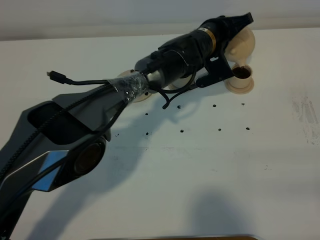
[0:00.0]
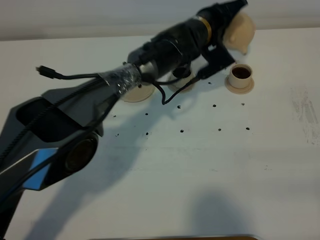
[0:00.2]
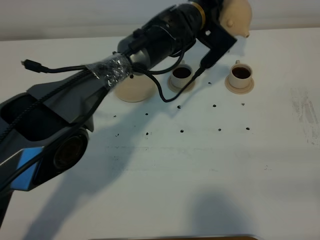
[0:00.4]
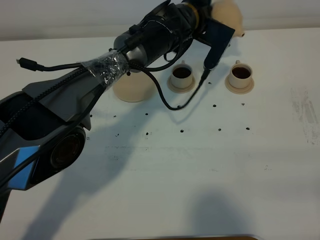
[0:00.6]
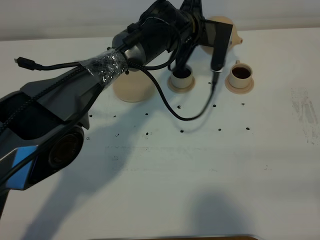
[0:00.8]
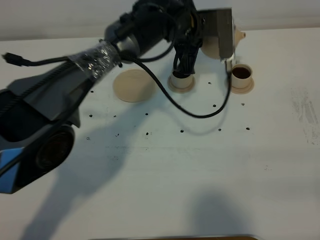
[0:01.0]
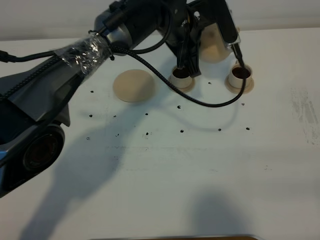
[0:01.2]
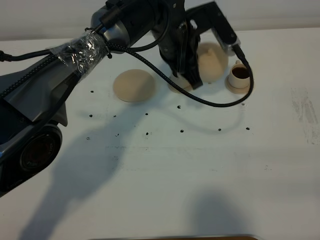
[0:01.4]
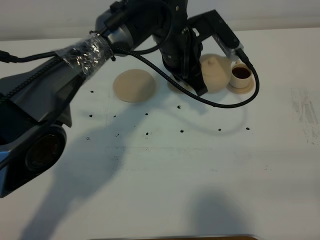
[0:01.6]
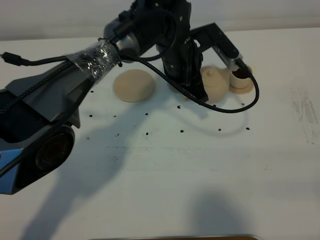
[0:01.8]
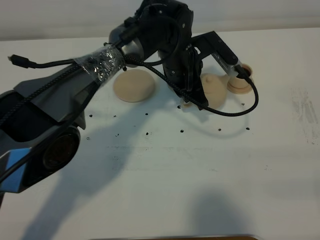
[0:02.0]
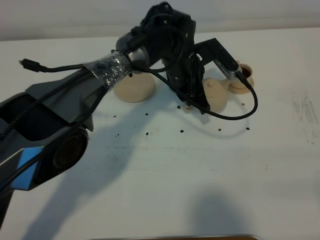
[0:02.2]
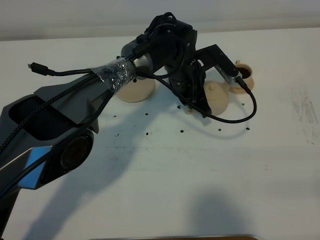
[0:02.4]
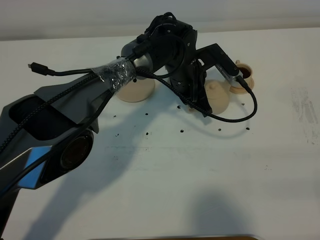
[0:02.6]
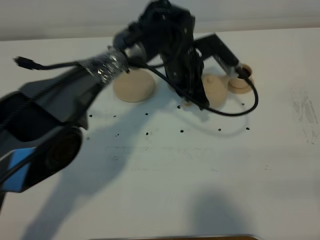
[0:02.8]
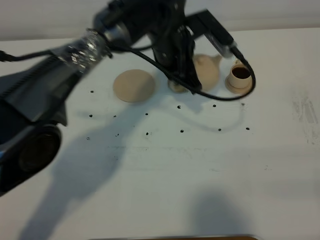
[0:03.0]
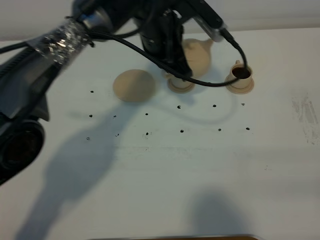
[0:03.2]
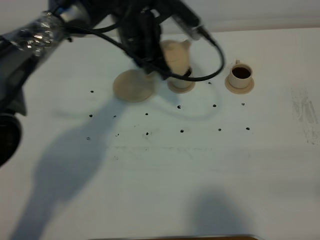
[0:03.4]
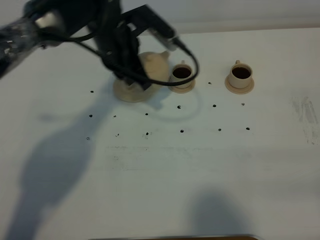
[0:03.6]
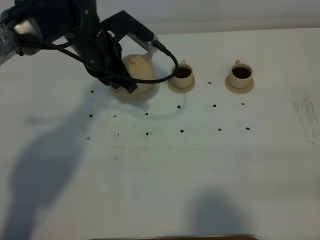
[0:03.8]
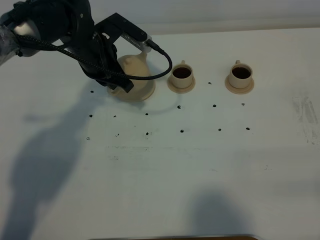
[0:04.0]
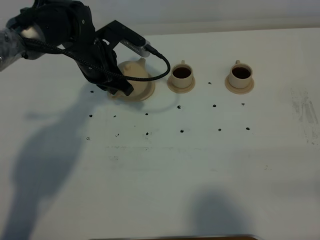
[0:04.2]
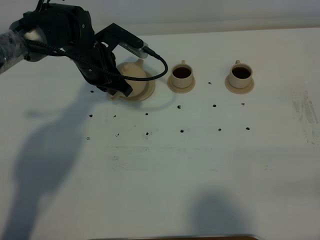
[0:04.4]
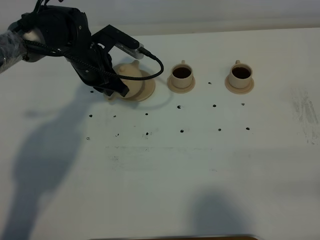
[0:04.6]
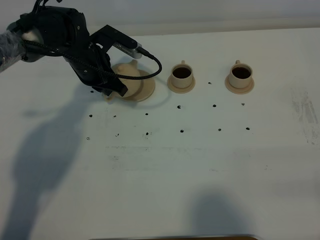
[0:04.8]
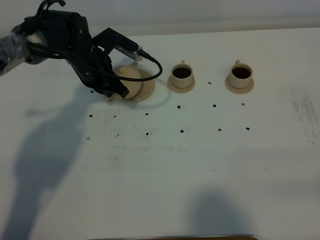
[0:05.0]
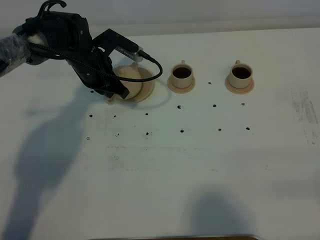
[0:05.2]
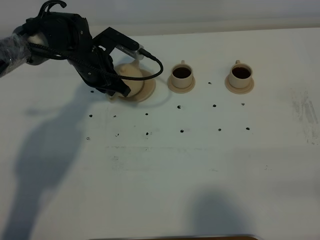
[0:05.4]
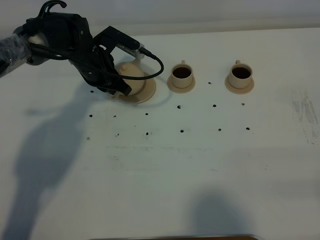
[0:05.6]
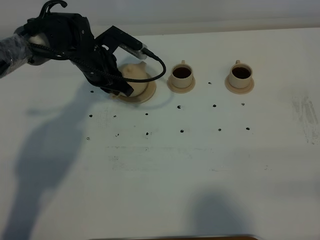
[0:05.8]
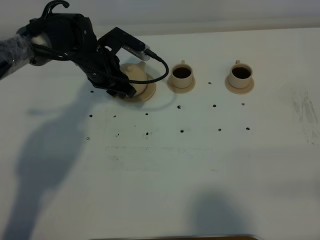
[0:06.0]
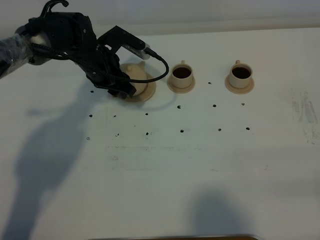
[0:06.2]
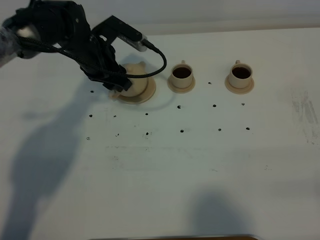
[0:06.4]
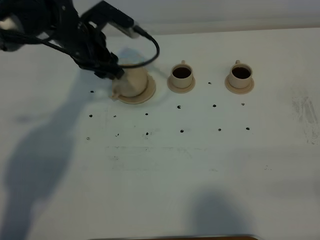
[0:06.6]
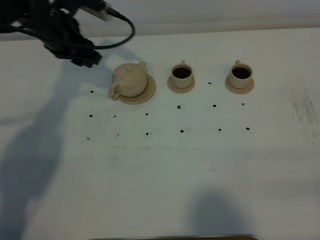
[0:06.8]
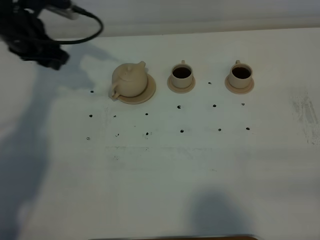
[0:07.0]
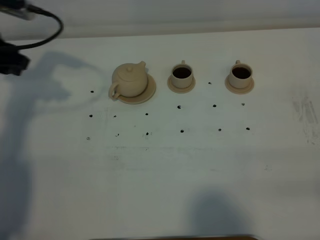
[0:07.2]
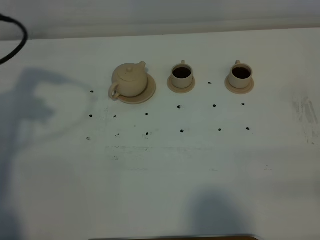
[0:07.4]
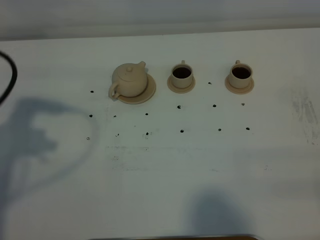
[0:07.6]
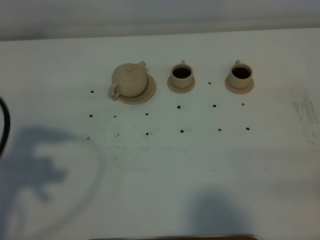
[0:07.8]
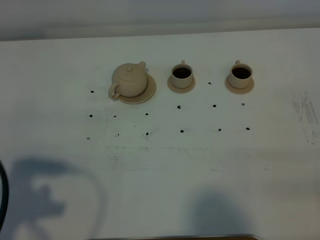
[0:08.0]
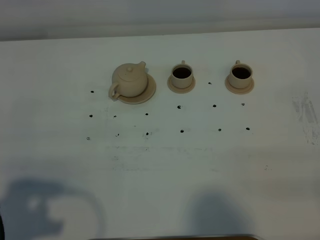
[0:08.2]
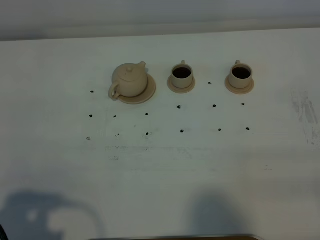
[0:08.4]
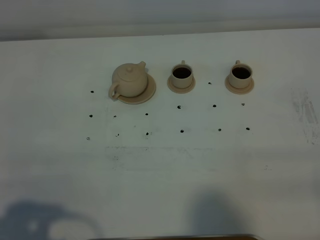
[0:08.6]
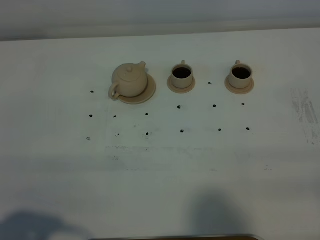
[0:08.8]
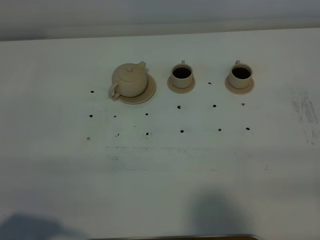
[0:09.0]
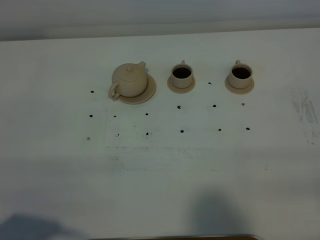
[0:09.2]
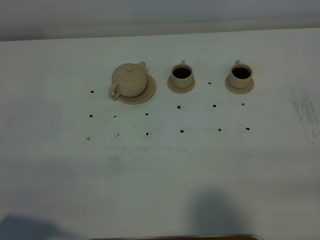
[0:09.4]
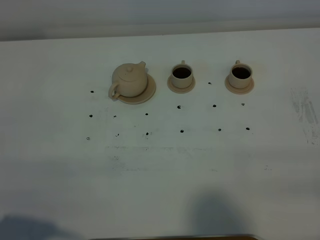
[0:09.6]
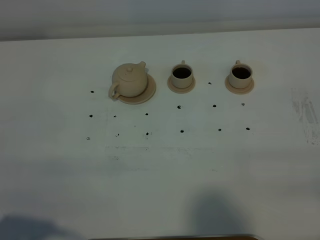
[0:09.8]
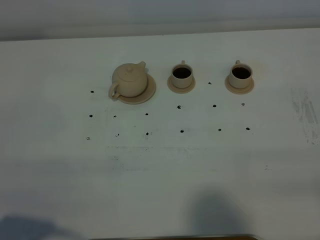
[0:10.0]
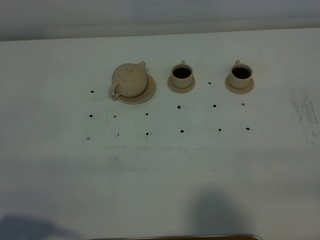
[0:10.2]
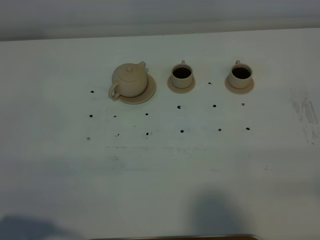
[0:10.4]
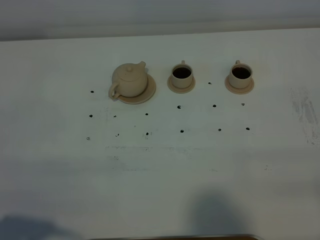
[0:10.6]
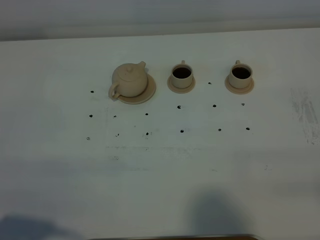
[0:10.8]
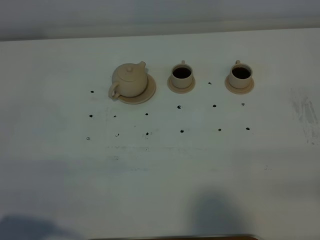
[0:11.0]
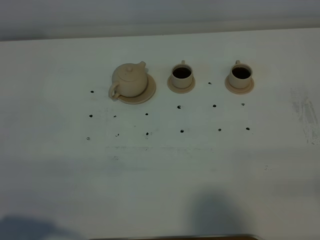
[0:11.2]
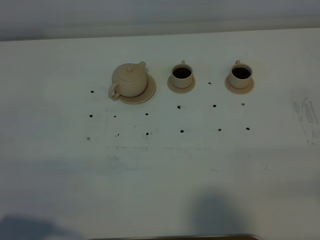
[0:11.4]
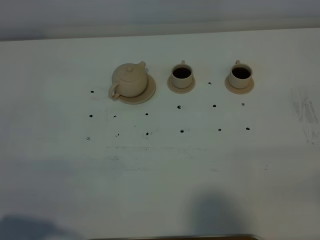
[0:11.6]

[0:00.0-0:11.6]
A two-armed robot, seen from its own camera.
Task of the whole recording: grasp the brown teapot and pour the tea into the two brown teacups one by one, put the brown teapot back in its original place.
0.0 to 1.4 s: The left gripper shifts roughly 10 cm upward, to the left and backward.
2.8 to 4.4 s: The left gripper travels to the left by some 15 cm.
4.4 to 5.8 s: The grippers move only a little.
5.8 to 7.2 s: The left gripper goes about 25 cm to the left, upward and backward, and opens.
7.2 to 8.8 s: The left gripper heads backward, covering approximately 35 cm.
8.8 to 10.2 s: Both grippers stay put.

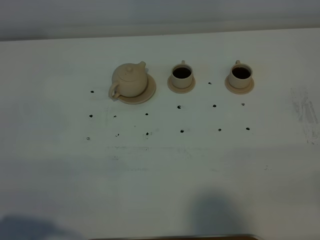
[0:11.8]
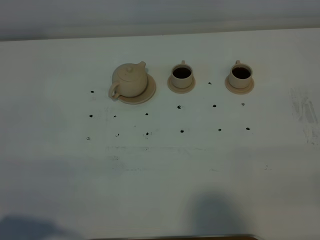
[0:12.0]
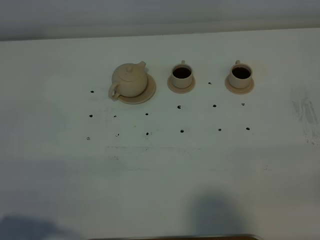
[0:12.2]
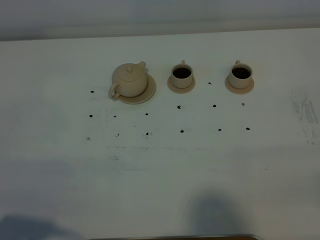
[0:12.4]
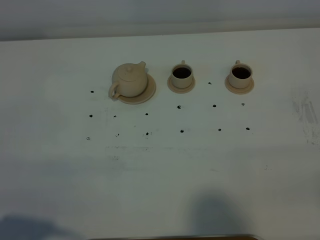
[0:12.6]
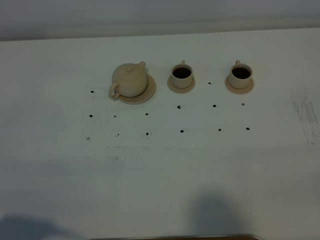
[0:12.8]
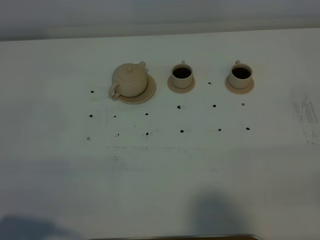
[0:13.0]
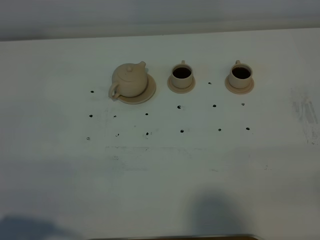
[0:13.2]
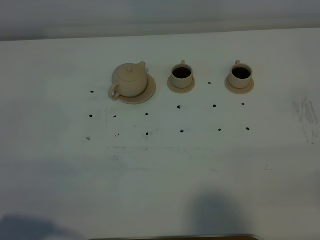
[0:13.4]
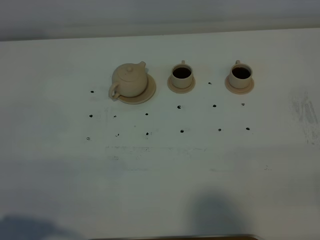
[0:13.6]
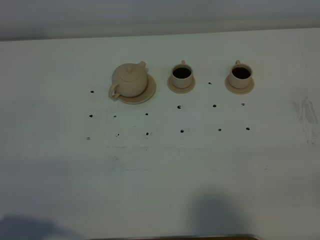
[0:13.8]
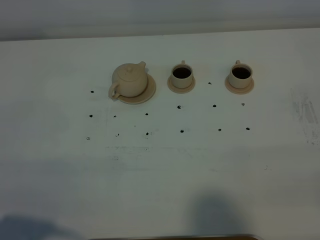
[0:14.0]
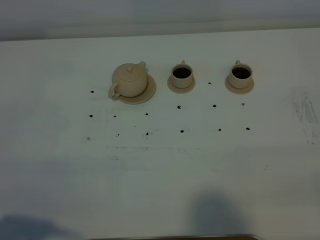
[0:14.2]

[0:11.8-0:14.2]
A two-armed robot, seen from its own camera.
Task of the whole recording: grasp the brown teapot and pour the tea into the two brown teacups one by one, put the brown teapot back in its original place.
11.8 to 14.2 s: Both grippers stay about where they are.

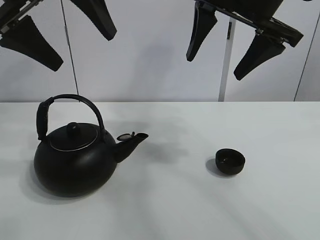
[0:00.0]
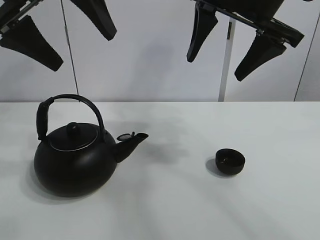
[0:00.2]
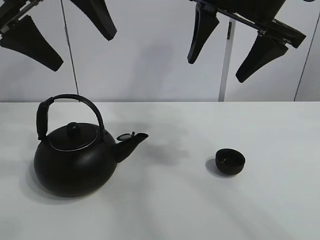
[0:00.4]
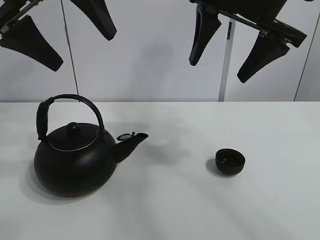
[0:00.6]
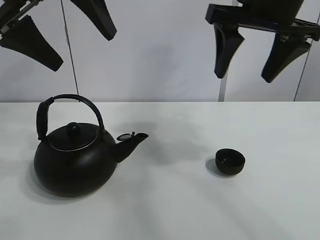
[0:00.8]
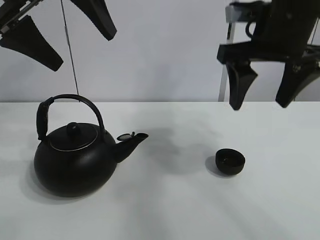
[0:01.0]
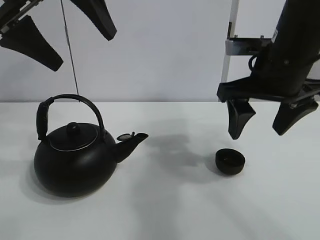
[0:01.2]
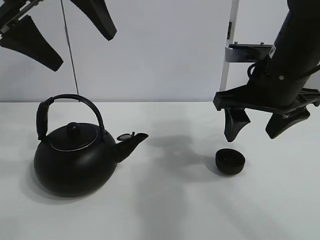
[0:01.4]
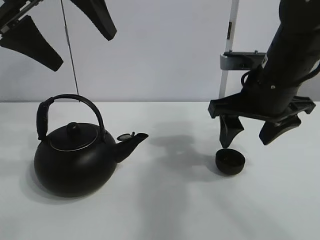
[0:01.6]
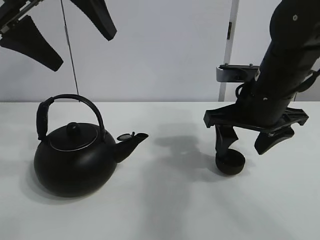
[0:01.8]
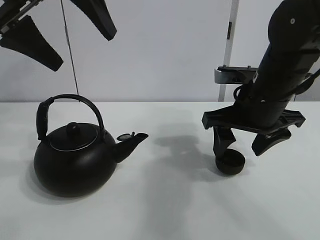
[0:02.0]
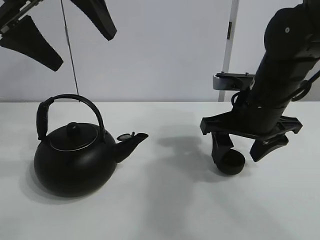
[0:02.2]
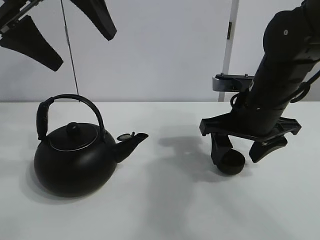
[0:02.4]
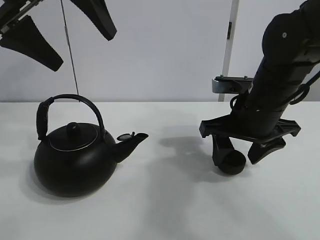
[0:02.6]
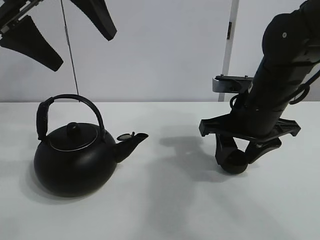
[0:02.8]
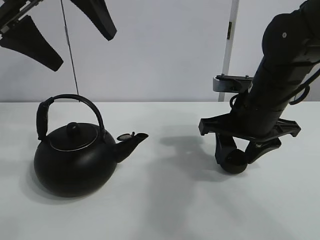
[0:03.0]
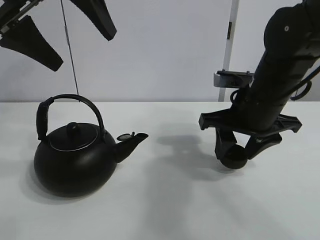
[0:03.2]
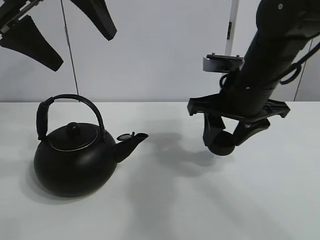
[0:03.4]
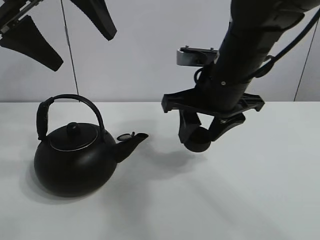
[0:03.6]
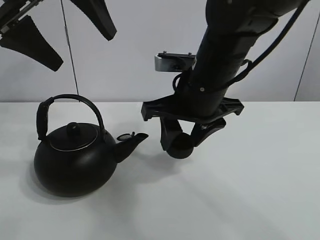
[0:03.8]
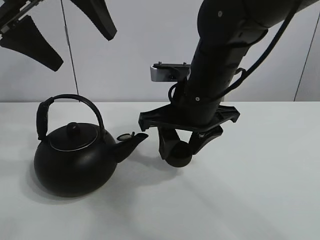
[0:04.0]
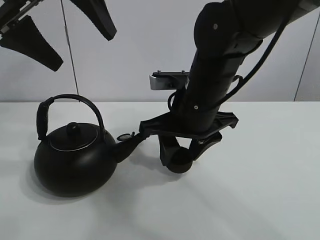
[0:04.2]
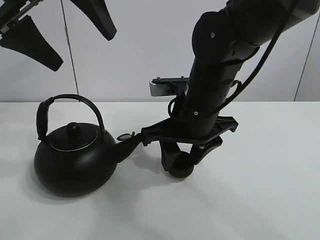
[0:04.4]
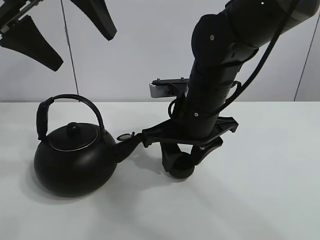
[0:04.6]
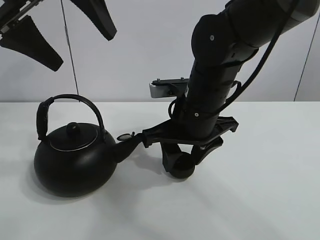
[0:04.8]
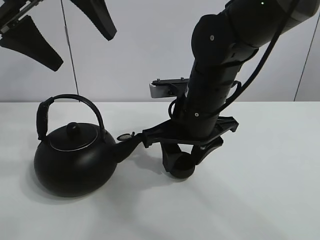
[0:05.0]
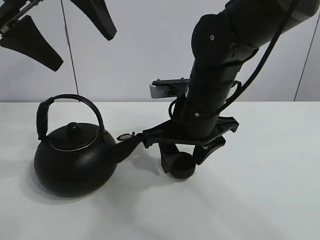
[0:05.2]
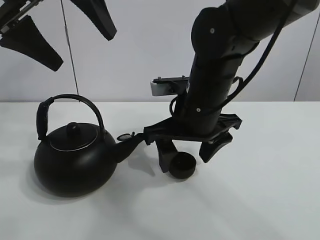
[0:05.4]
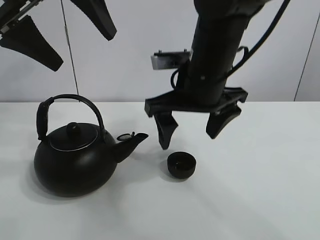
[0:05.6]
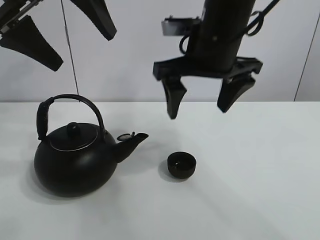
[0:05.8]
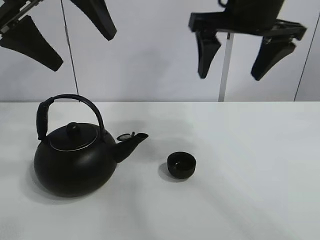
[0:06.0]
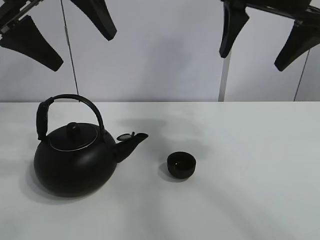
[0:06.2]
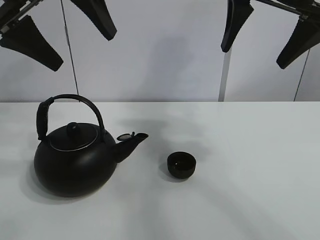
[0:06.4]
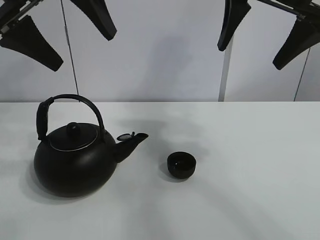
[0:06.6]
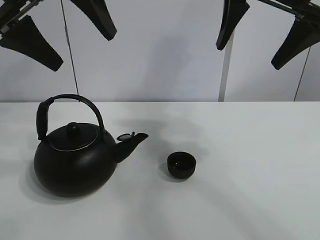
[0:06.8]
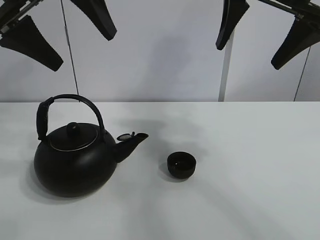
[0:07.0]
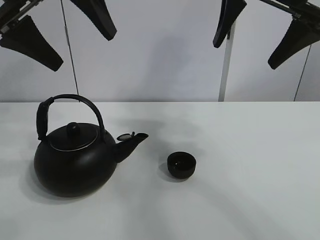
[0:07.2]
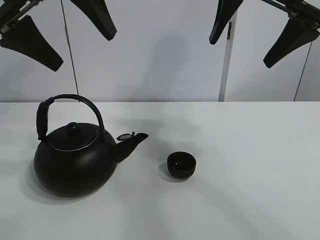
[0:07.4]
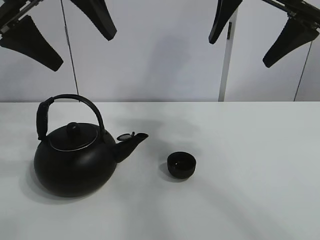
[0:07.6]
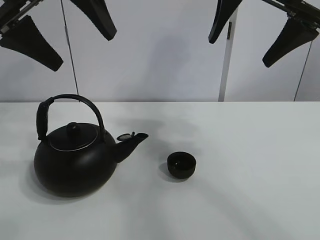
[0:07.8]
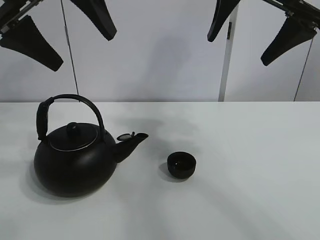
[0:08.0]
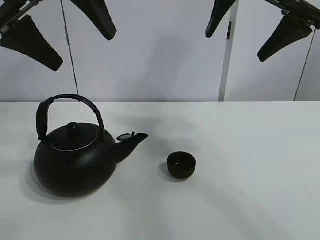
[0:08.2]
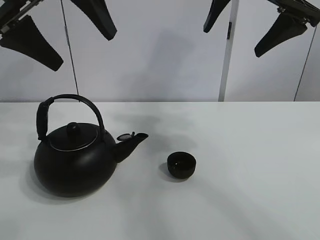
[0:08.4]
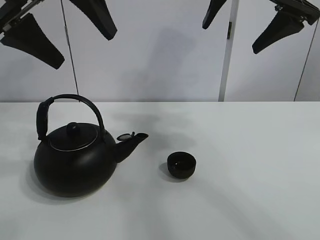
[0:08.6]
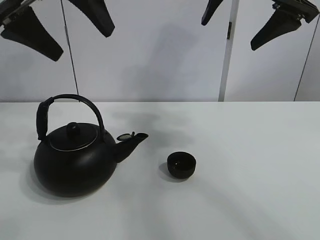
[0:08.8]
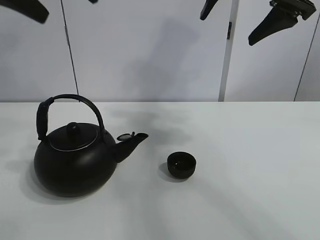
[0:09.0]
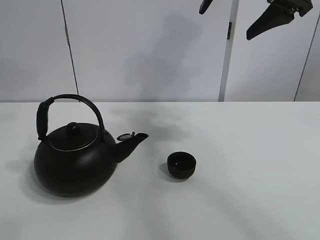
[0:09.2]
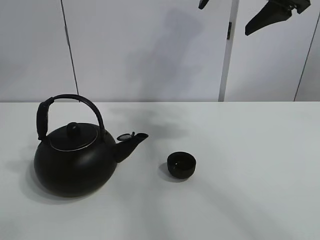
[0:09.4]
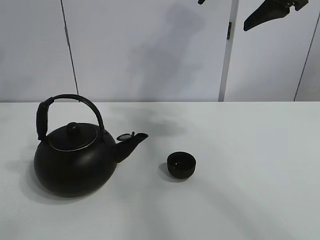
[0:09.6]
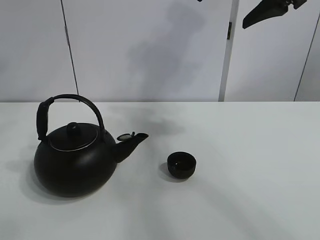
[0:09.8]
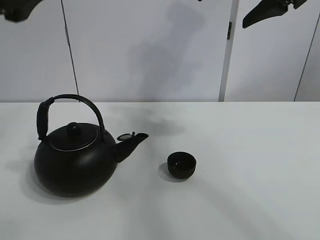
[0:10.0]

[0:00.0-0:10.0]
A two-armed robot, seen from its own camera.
Task of the whole recording: pour tea into the teacup.
Step, 0.0 to 2.8 s: Pick up the teacup with the right gripper.
Step, 3.2 to 5.2 s: Place the teacup in the center of view with the right gripper.
1.4 to 2.8 s: The right gripper moves downward, about 5 cm, and closes.
2.8 to 4.2 s: The right gripper heads to the left, covering some 10 cm.
4.2 to 5.8 s: The right gripper is displaced upward by roughly 10 cm, and opens up.
5.8 to 7.2 s: The right gripper moves to the right and upward, about 15 cm.
7.2 to 8.6 s: The grippers make only small movements.
8.6 to 10.0 s: The left gripper travels backward by about 10 cm, and goes upward and returns, roughly 10 cm each way.
